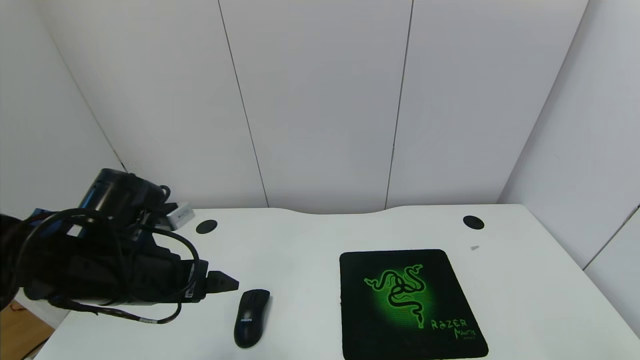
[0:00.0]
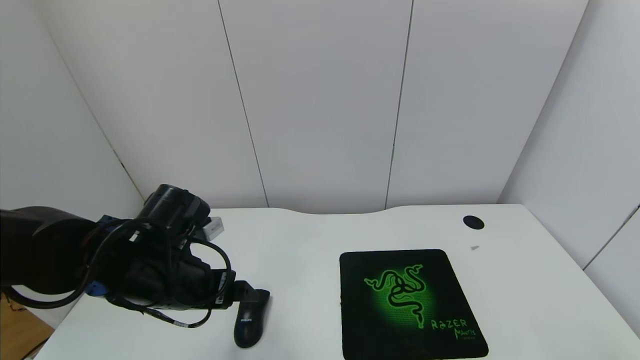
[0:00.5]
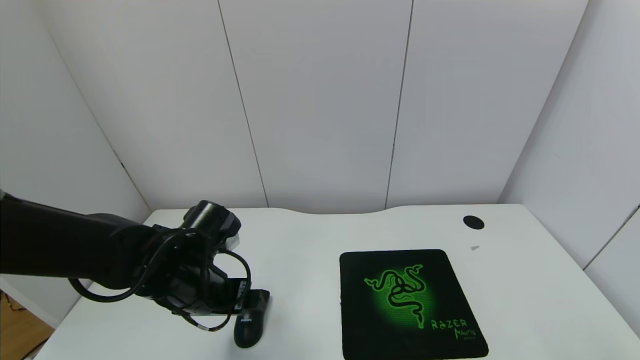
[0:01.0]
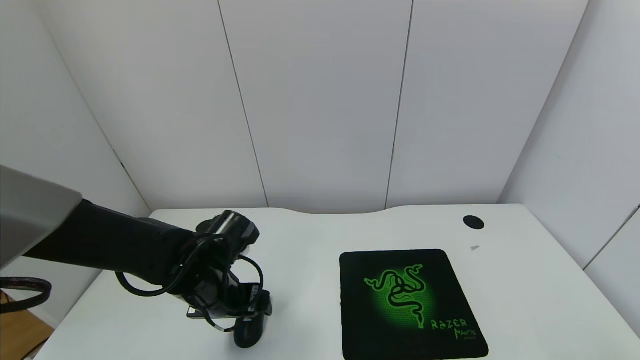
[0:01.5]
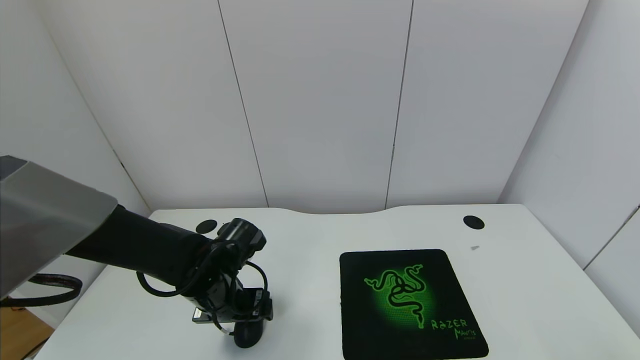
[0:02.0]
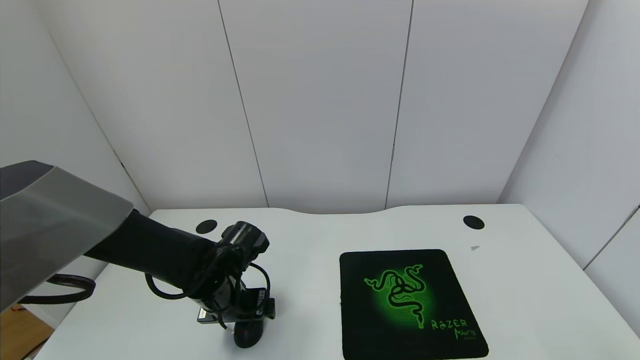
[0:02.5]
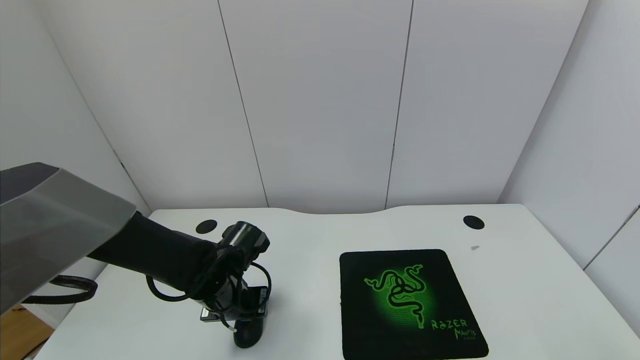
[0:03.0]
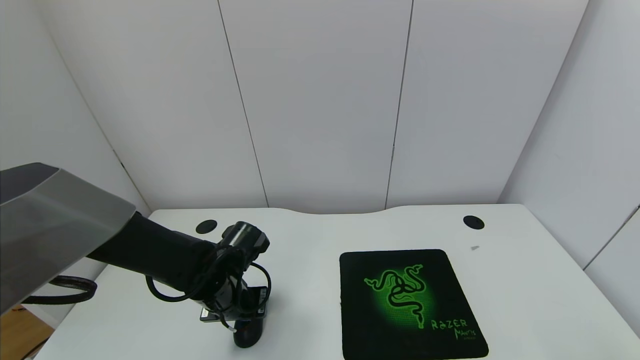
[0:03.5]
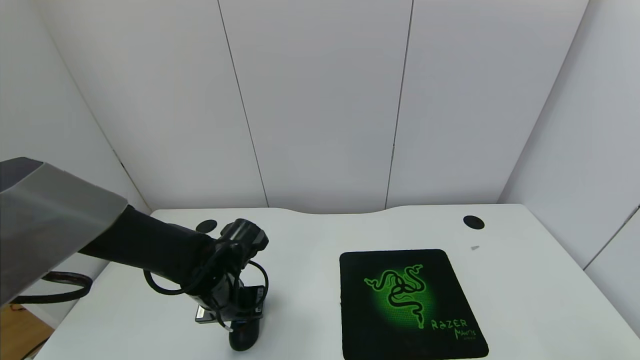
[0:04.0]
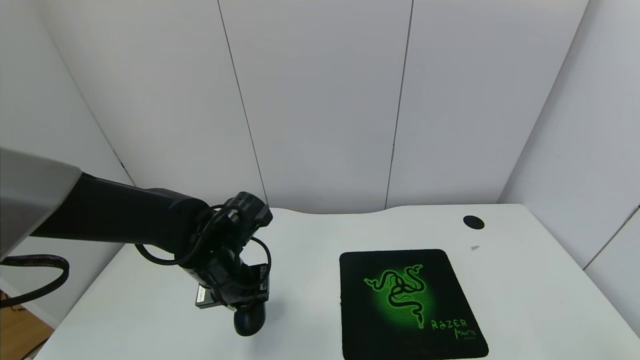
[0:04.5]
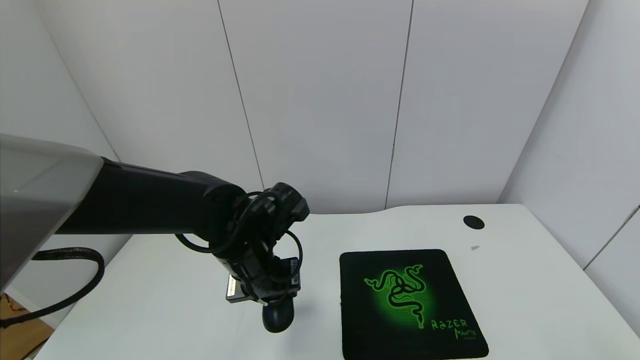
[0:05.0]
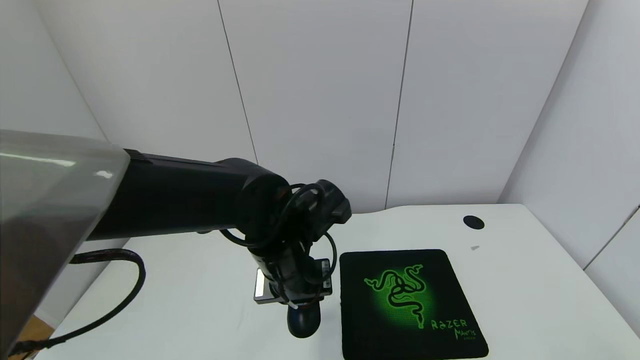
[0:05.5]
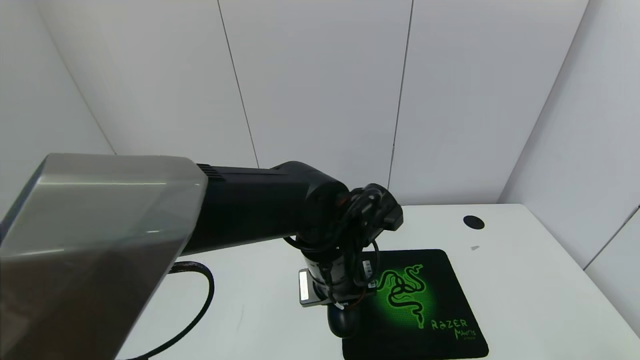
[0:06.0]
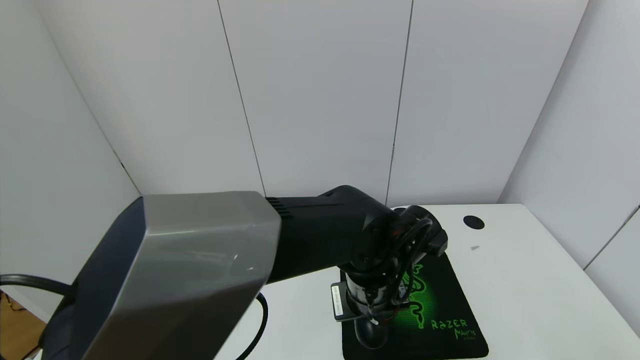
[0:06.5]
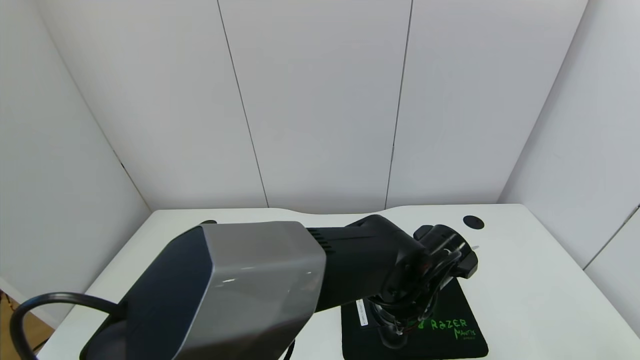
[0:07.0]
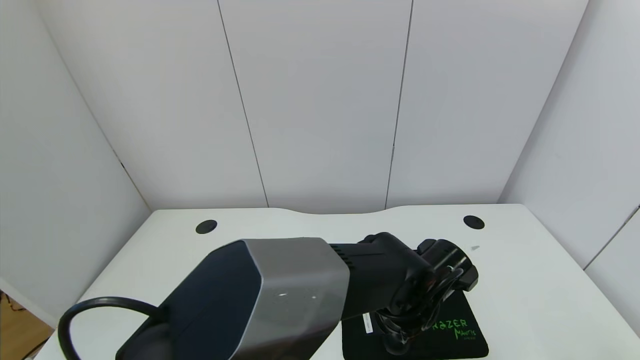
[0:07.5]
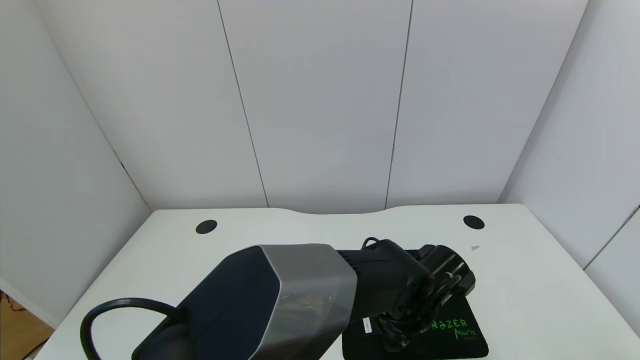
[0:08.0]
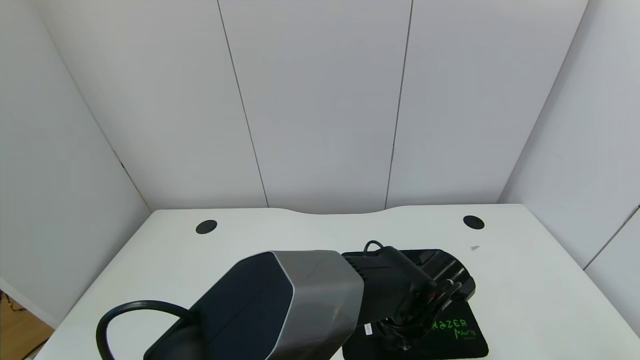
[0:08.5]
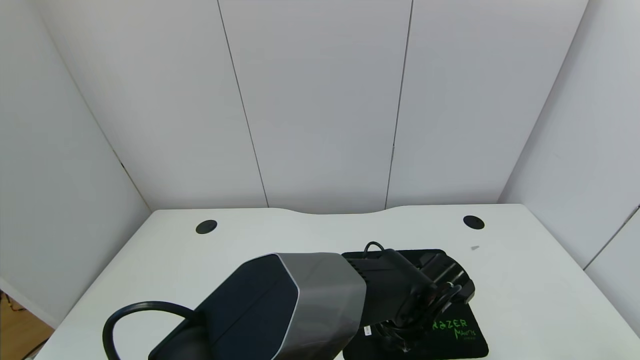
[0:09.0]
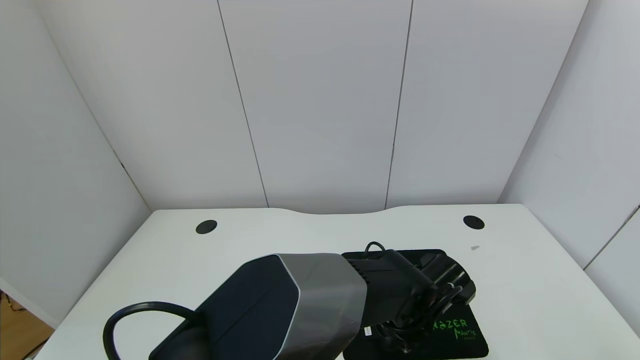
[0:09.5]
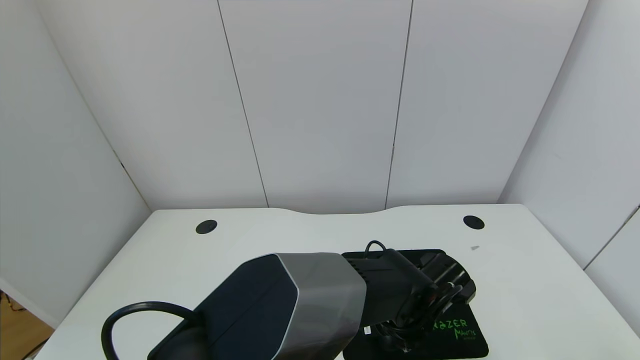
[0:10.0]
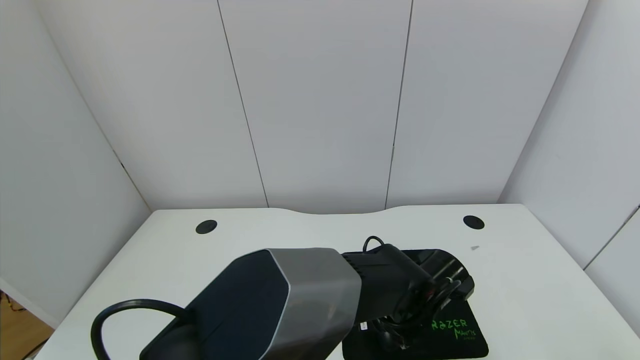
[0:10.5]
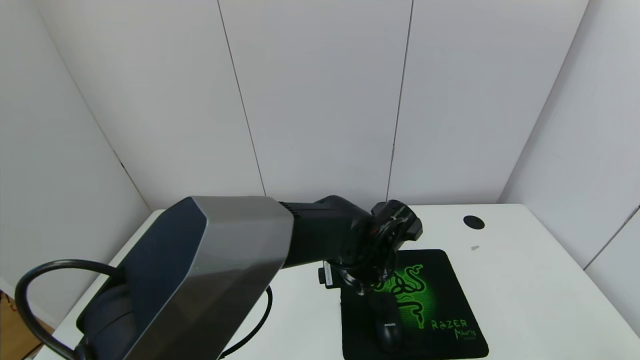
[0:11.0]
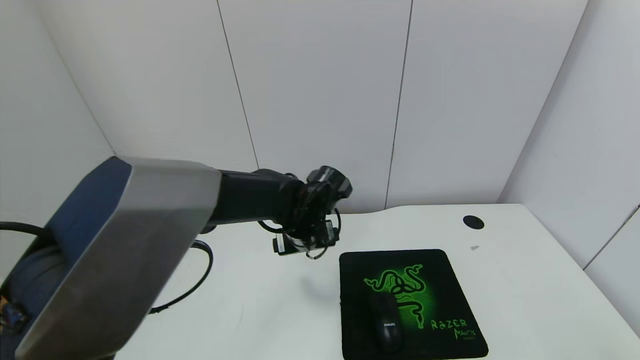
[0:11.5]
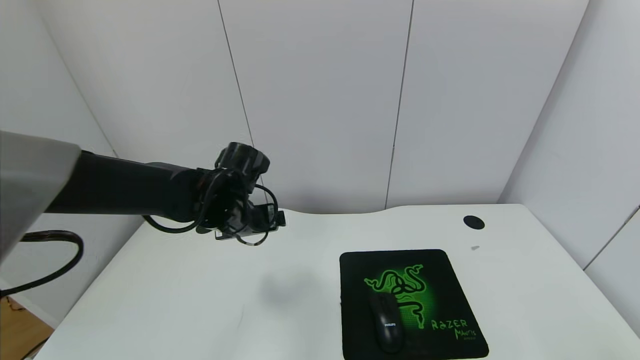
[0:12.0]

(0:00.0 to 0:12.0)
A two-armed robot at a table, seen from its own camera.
Task of the whole recording: use the gripper to move the mouse from one side of the table to the mouse pad on the opposite side.
Step, 0:00.0 - 0:03.5: Grasp the mouse with the left gripper.
Step, 0:04.0 - 0:11.0: Place the mouse on the mouse pad with the left gripper.
0:00.0 - 0:02.0: The left gripper shifts about 15 cm downward, forward and to the right.
0:02.0 - 0:04.0: The left gripper closes.
0:04.0 - 0:06.0: The left gripper heads to the right and upward, covering about 20 cm.
0:06.0 - 0:08.0: The left gripper is displaced to the right and downward by some 15 cm.
0:08.0 - 0:10.0: The left gripper opens.
0:10.0 - 0:12.0: The left gripper goes some 30 cm to the left and upward.

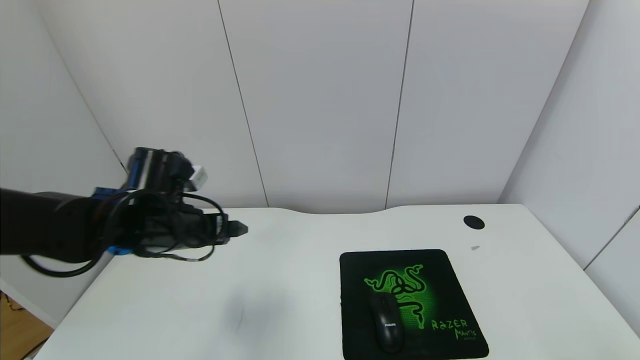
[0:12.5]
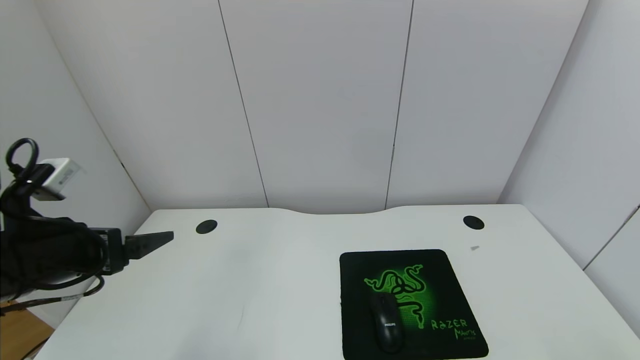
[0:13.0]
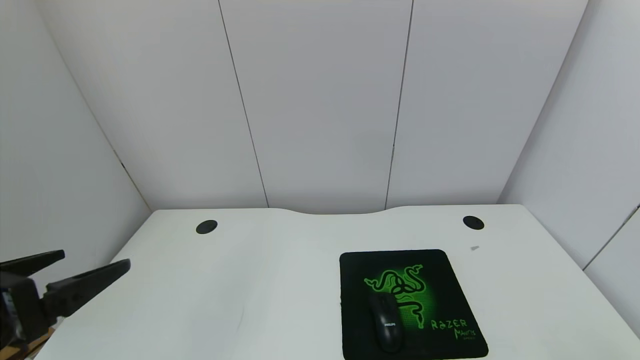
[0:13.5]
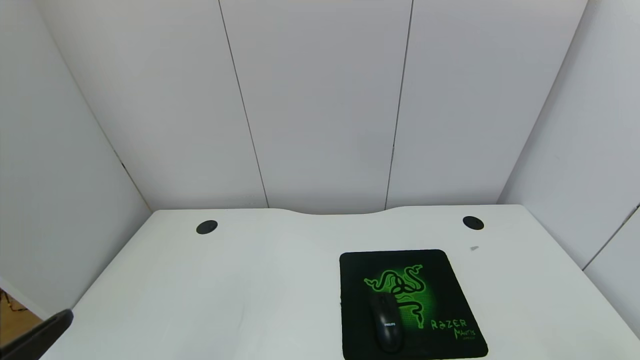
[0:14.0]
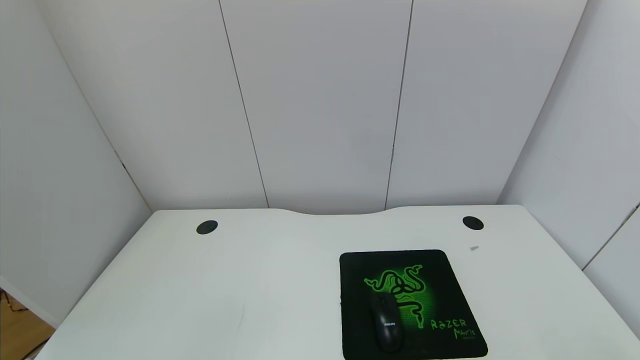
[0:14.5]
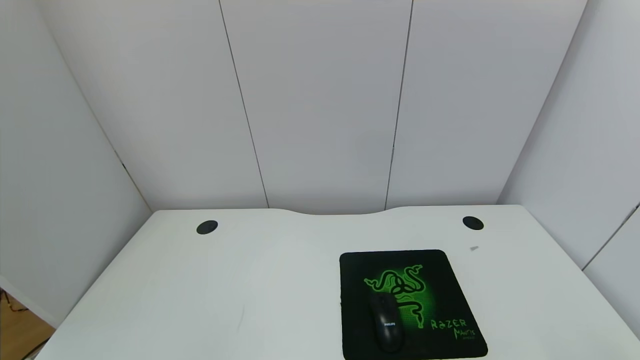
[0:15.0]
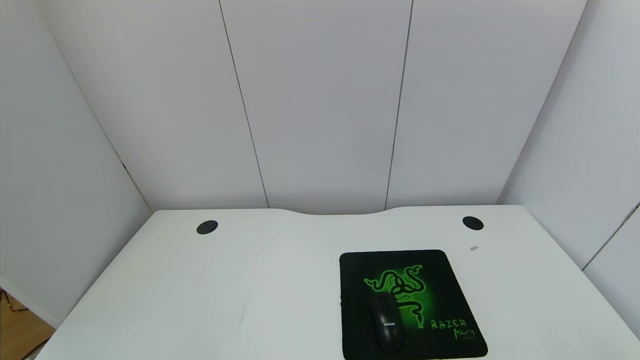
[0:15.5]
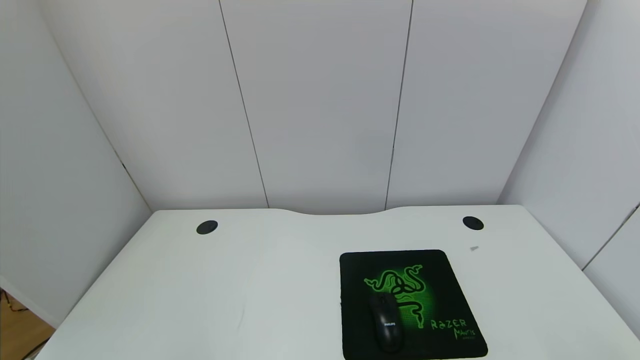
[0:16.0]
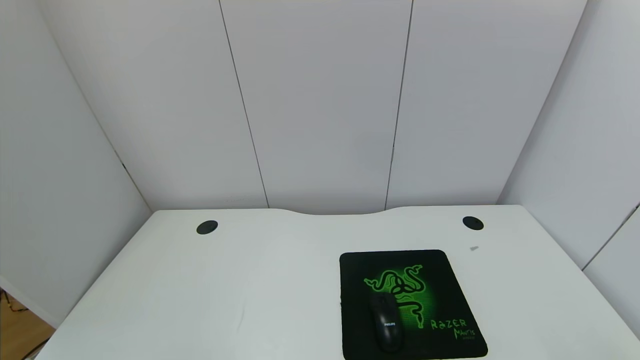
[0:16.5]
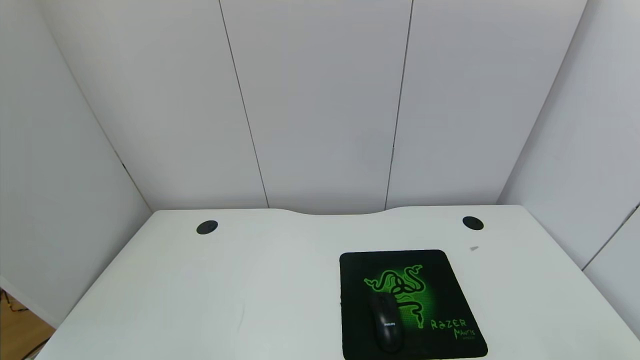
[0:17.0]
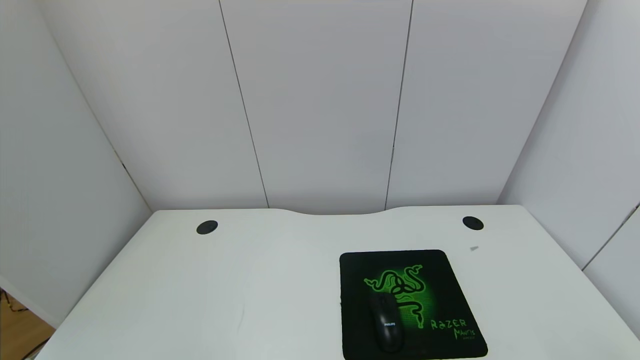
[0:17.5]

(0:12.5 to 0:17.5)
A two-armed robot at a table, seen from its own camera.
Task of the whole recording: use the gripper to move the mouse from one side of the table to the mouse pad on the opposite side.
0:12.5 - 0:15.0: The left gripper goes approximately 35 cm backward.
